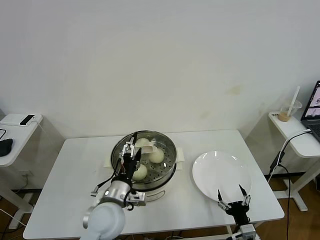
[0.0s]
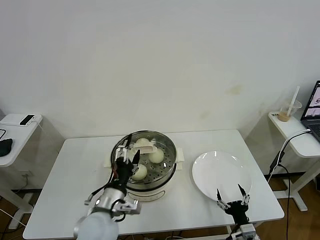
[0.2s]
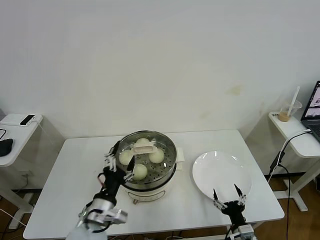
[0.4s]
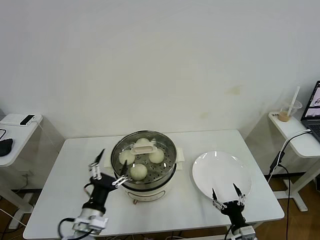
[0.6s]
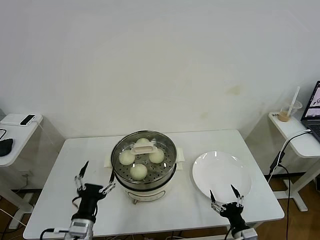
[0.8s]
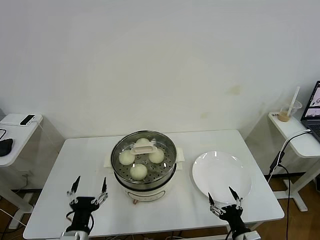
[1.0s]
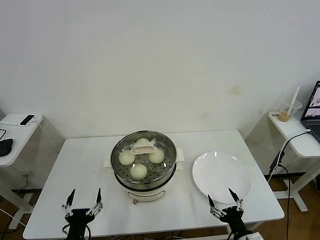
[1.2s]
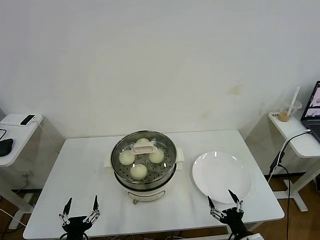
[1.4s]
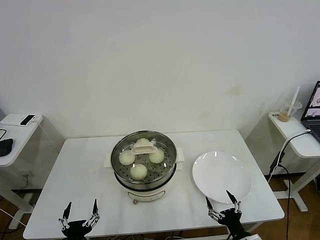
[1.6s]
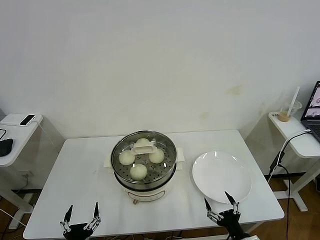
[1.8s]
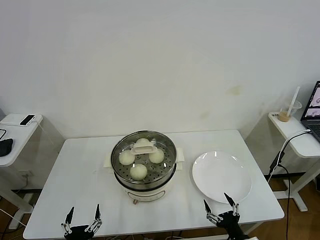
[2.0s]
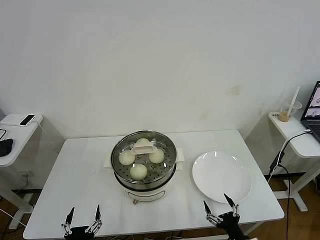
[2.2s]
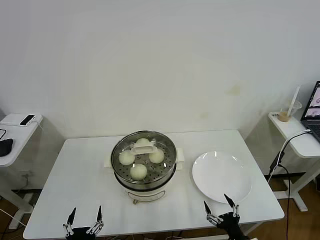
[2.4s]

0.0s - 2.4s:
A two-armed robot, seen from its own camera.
Task of the whole recording: take steamed baozi put them in steamer then cover it.
0.0s - 1.2s: The left gripper shifts approximately 20 cm backward, to the left and downward.
1.2s - 2.4s: The left gripper is displaced backward by some 5 cm.

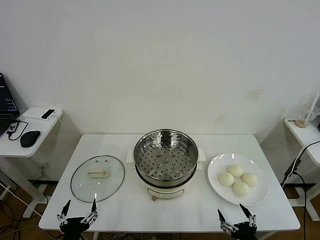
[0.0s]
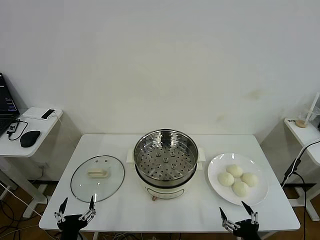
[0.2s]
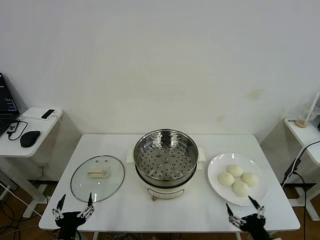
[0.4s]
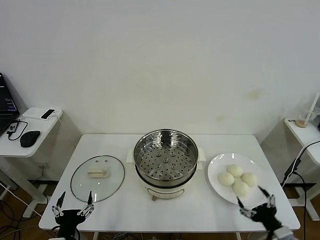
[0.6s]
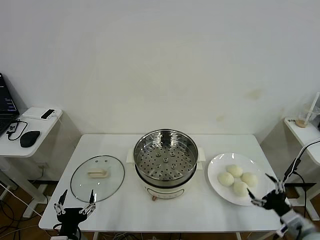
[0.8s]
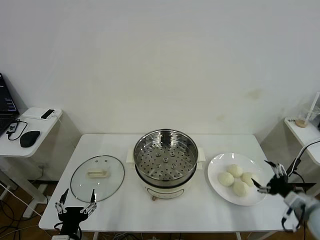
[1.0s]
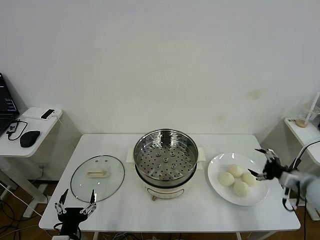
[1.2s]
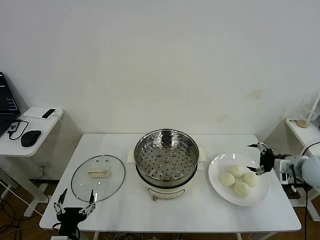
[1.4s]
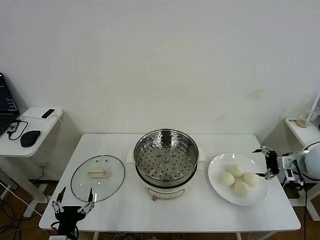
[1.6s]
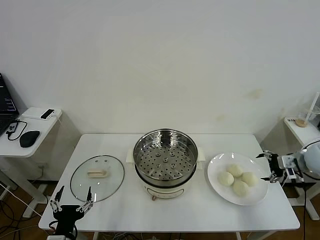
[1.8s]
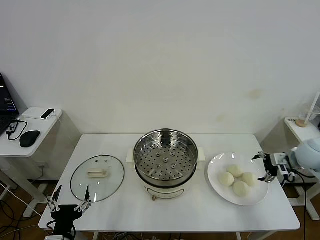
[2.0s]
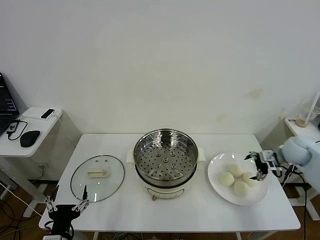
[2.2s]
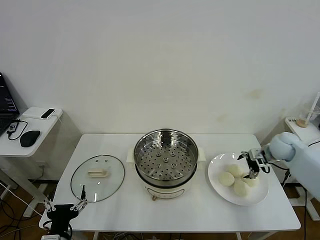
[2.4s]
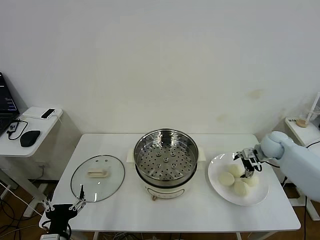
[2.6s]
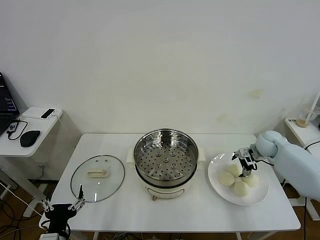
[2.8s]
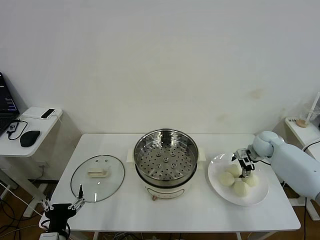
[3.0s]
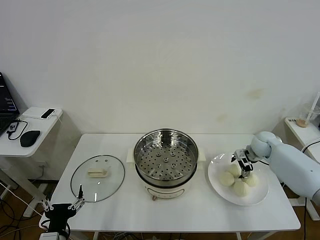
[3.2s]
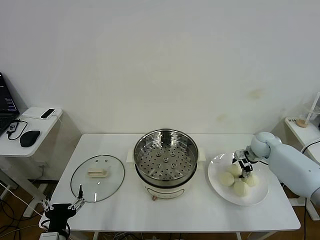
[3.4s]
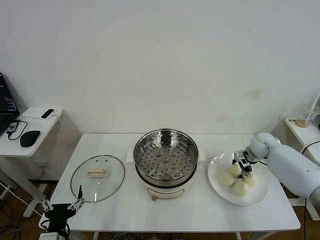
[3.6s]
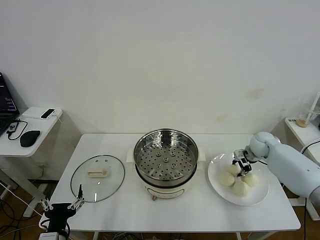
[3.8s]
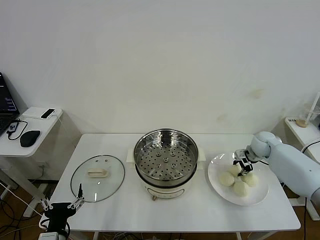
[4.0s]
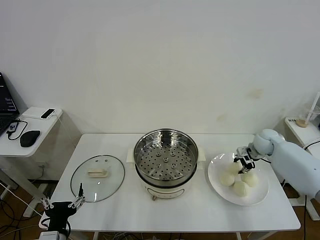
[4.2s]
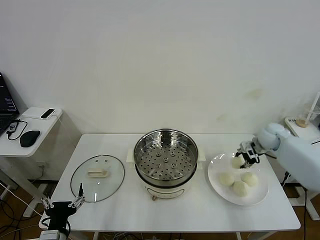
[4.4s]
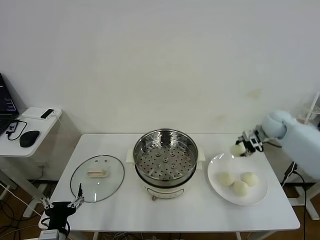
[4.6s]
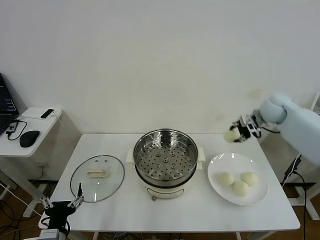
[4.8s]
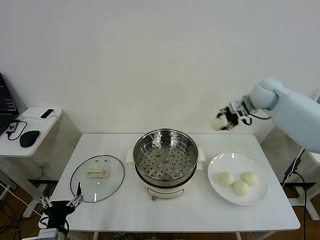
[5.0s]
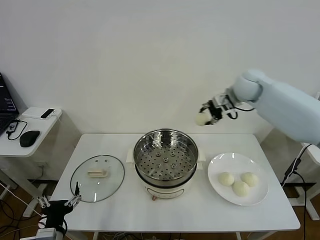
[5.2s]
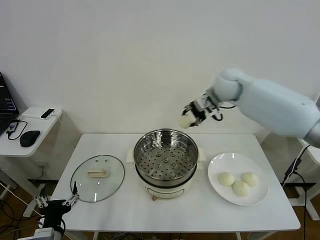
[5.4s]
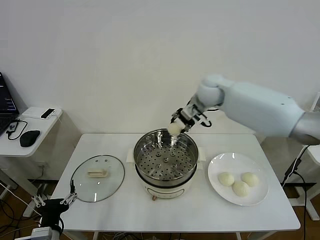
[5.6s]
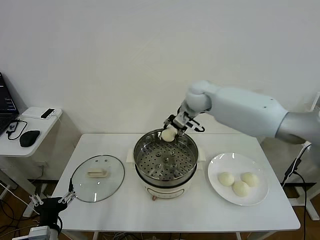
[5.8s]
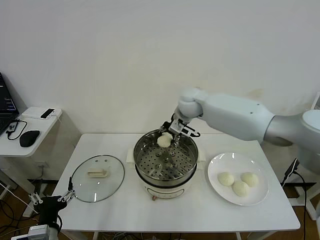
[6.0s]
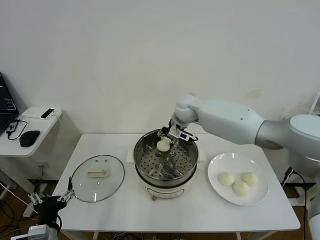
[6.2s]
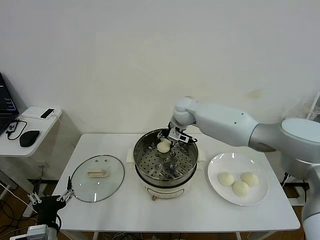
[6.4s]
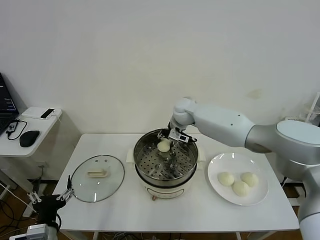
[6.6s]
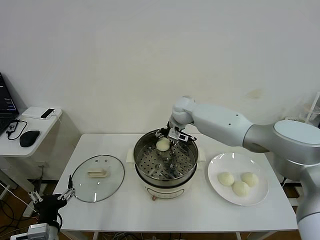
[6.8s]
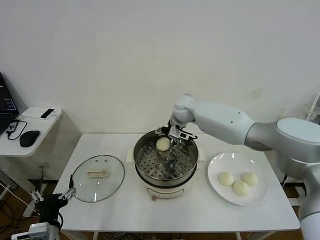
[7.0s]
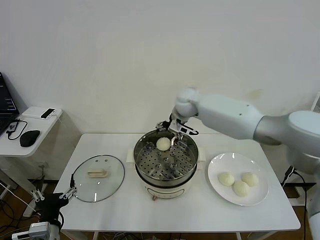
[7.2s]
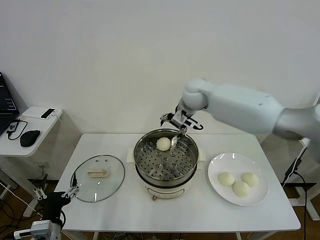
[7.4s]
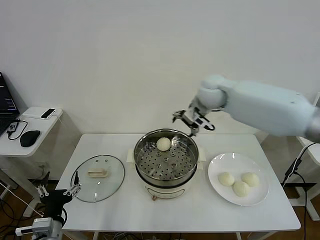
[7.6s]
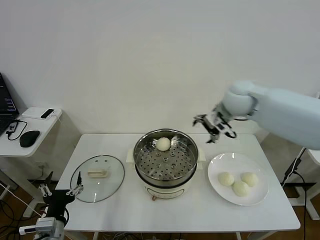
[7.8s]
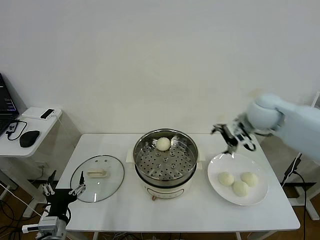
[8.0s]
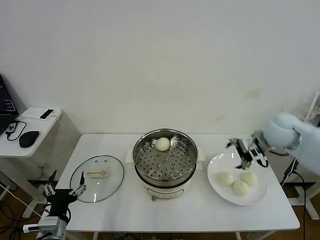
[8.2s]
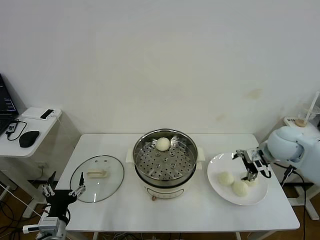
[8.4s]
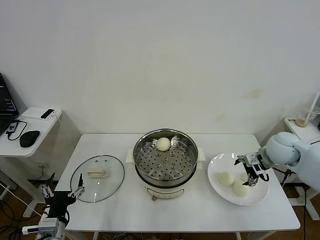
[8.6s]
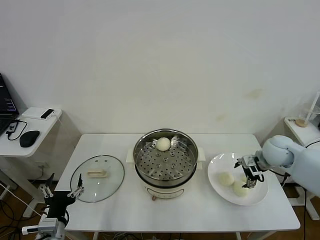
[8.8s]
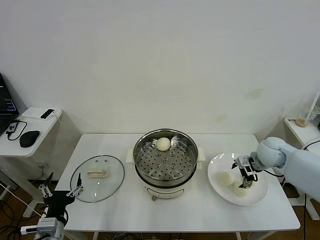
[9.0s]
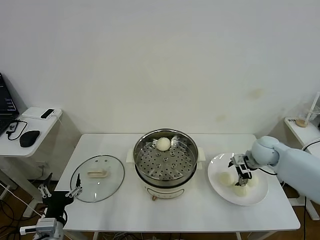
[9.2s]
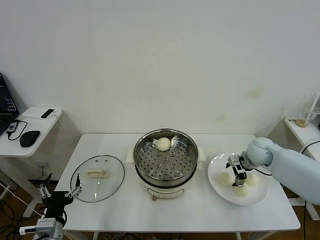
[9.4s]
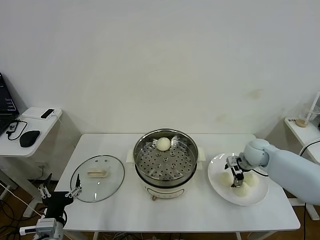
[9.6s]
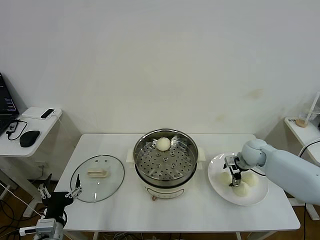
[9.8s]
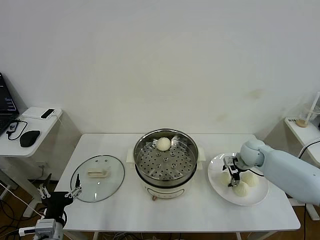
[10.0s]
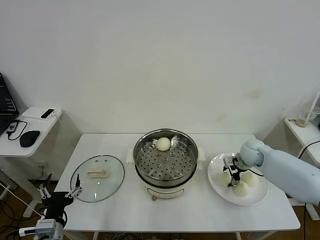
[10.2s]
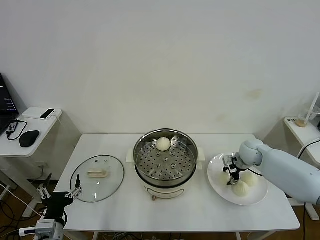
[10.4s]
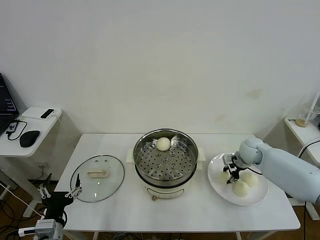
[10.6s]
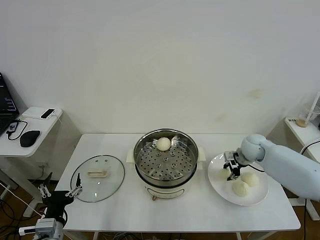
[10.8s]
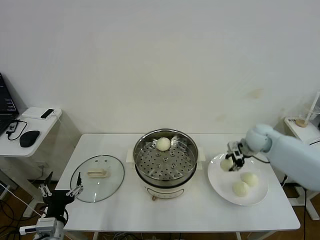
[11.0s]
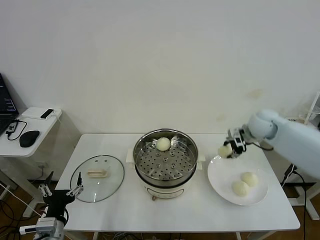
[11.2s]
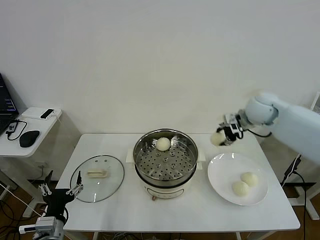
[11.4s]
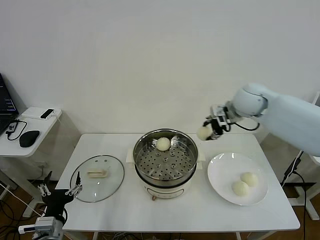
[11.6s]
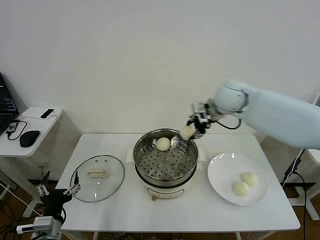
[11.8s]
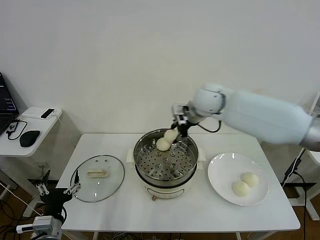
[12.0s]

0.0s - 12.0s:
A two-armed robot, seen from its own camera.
Task of the whole recording: take steamed baozi put them in steamer then cover it.
Step, 0.0s - 3.8s: Grasp the baozi in the plate with right gripper.
Step, 4.0s - 7.2s: Place the baozi on the steamer with right gripper.
Step, 7.4s - 10.4s: Grasp the baozi in the plate with right gripper.
1.6s - 3.0s: The right gripper goes some 20 cm forward, downward and to the left.
3.0s - 4.4s: The right gripper is displaced upward by some 10 cm, and closes up.
4.4s - 6.0s: The right gripper travels to the left by approximately 30 cm.
6.0s - 7.6s: The right gripper travels to the right, upward and backward by roughly 15 cm, and opens.
7.6s - 9.0s: The right gripper goes about 25 cm downward and to the right.
9.0s - 10.4s: The right gripper moves some 5 cm, and closes its fingers.
10.4s - 12.0s: The right gripper shifts some 30 cm to the left and upward.

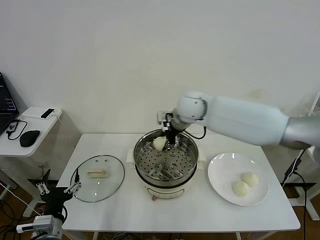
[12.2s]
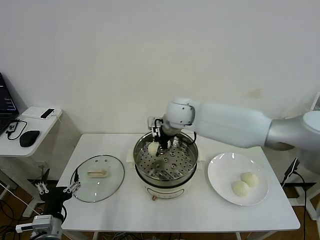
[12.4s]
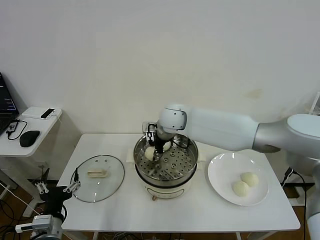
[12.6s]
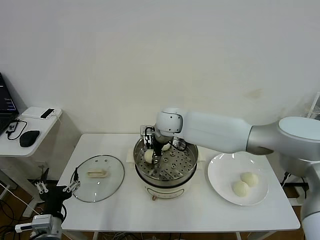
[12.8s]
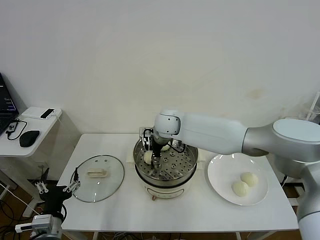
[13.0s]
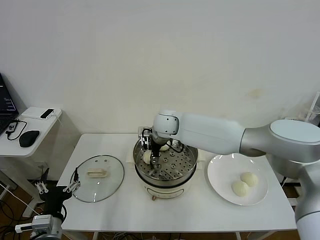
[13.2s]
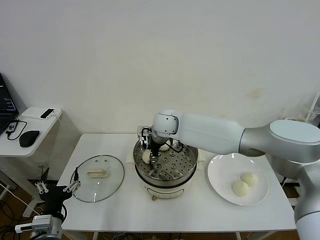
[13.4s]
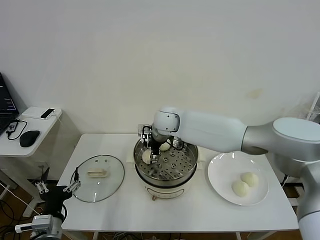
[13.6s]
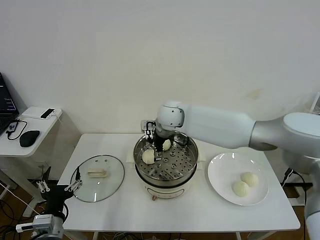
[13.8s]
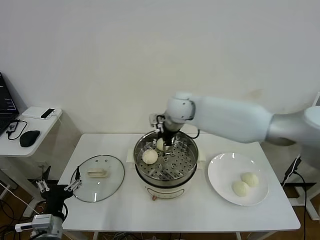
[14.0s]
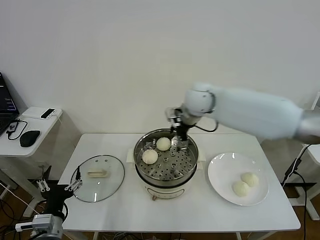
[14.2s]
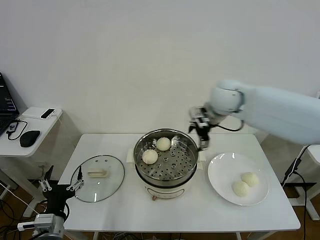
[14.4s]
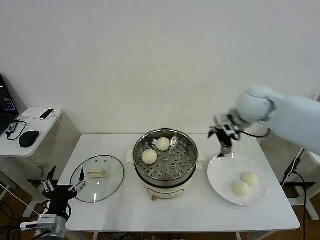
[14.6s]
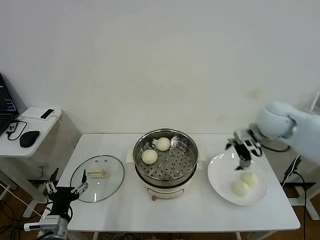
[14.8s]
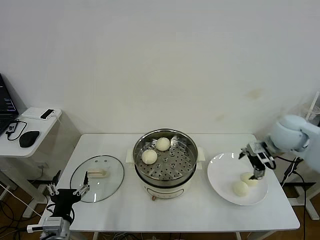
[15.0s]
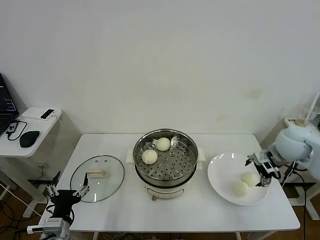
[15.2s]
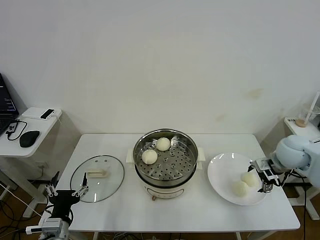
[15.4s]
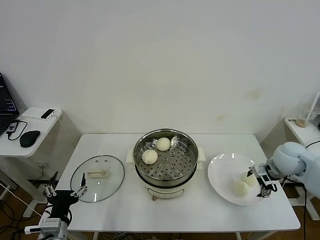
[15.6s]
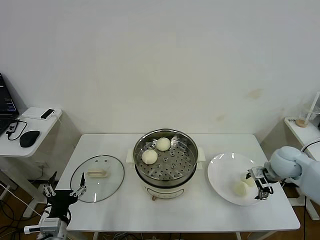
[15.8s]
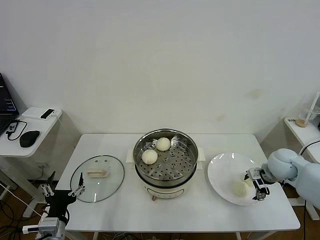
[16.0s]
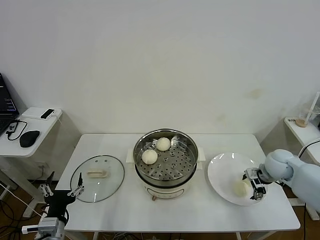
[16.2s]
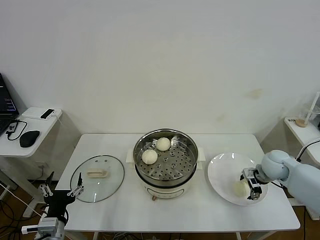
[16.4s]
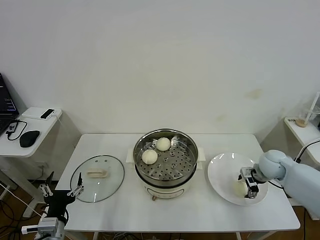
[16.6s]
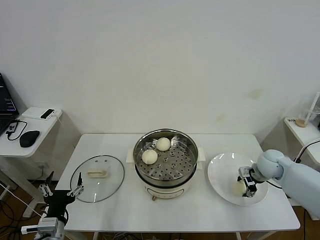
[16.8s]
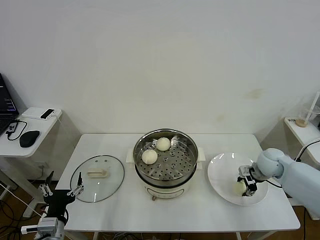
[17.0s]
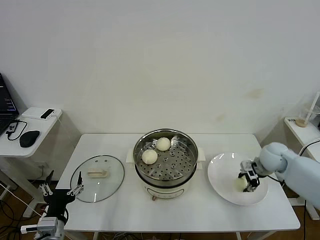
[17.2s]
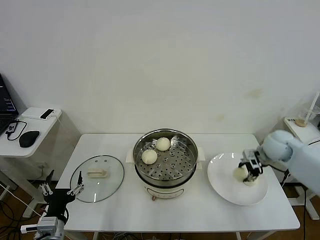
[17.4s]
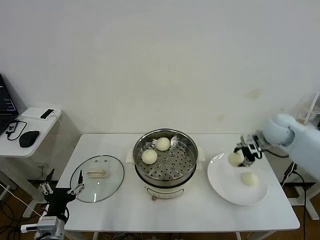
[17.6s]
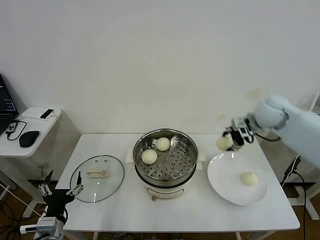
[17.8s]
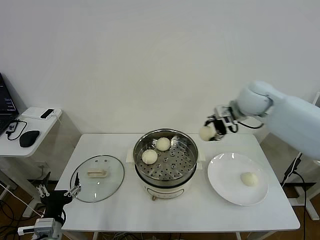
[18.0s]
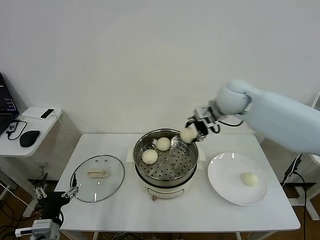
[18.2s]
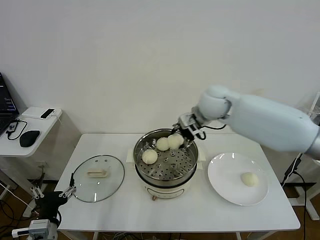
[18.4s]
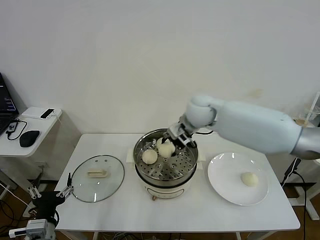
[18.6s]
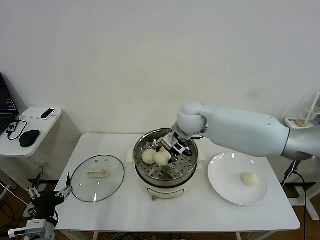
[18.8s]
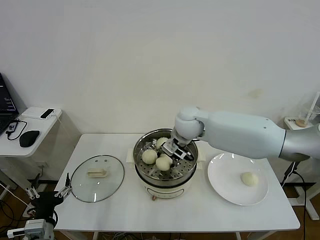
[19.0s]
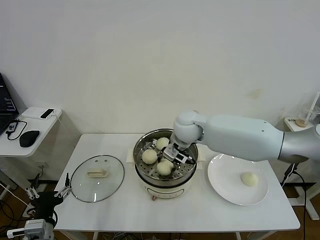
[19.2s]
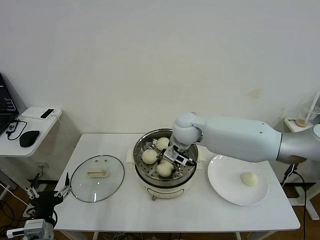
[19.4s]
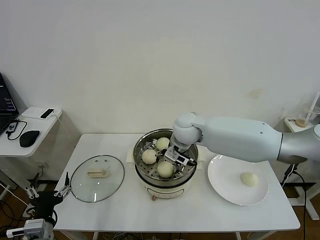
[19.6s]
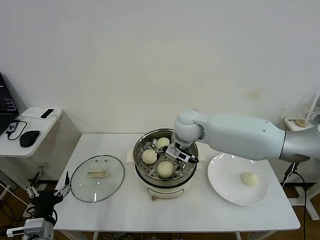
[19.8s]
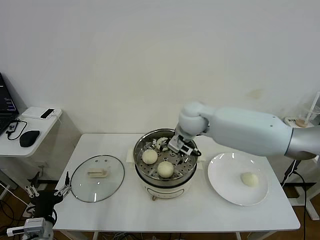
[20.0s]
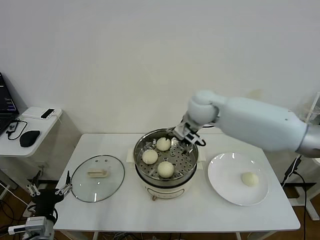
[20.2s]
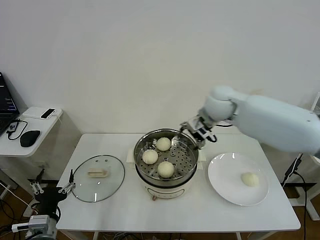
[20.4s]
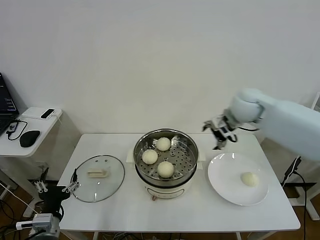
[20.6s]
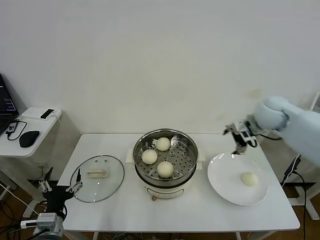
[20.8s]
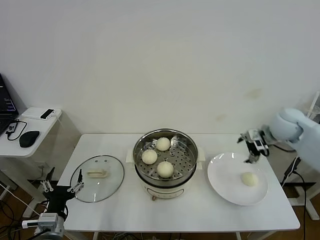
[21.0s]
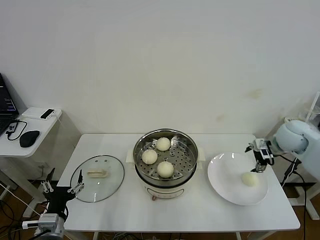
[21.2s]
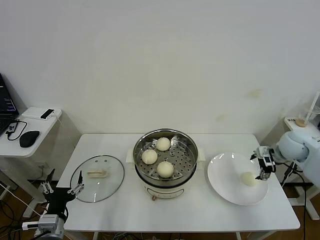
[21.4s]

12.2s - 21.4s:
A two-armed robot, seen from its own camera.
Task of the whole recording: take steamed baozi put them in steamer then cover it.
Step, 12.2s - 13.8s: Place the baozi on the steamer with right gripper.
Step, 14.0s - 17.0s: Grasp the baozi in the plate with right gripper.
Step, 17.2s - 19.8s: Place the baozi on the steamer with right gripper.
12.2s - 13.8s: The right gripper opens up.
13.8s - 15.2s: The right gripper moves to the right, some 35 cm.
15.2s - 16.8s: The right gripper is displaced downward by some 10 cm, and closes its fingers.
16.8s - 18.4s: The right gripper shifts approximately 30 cm to the left and upward.
18.4s - 19.8s: The right gripper goes approximately 10 cm downward and to the left, and opens.
19.8s - 21.4s: The right gripper travels to the right by approximately 35 cm.
